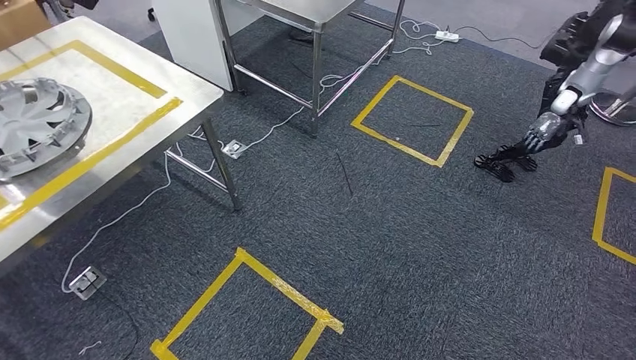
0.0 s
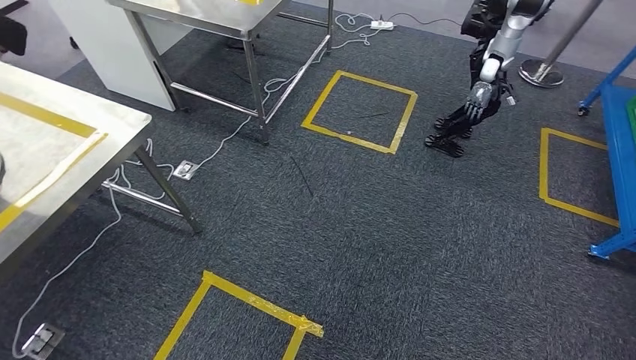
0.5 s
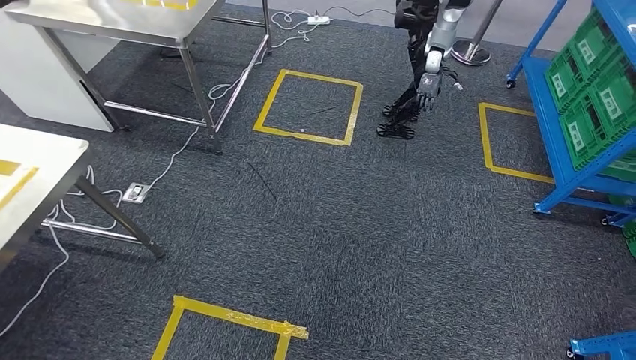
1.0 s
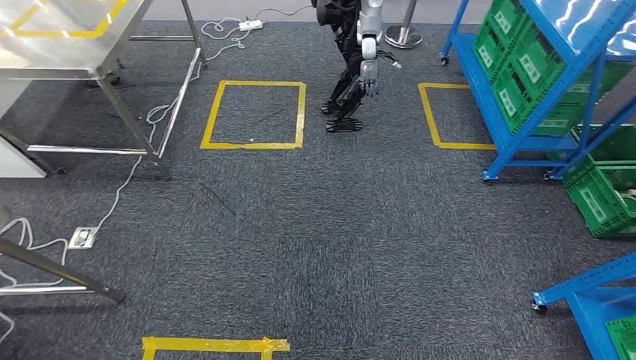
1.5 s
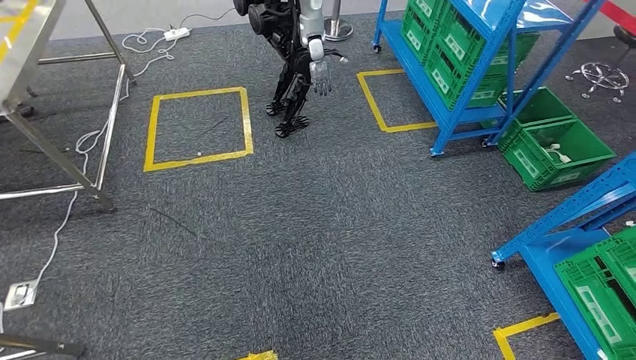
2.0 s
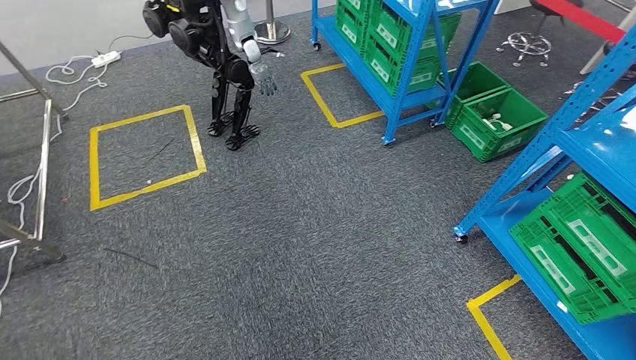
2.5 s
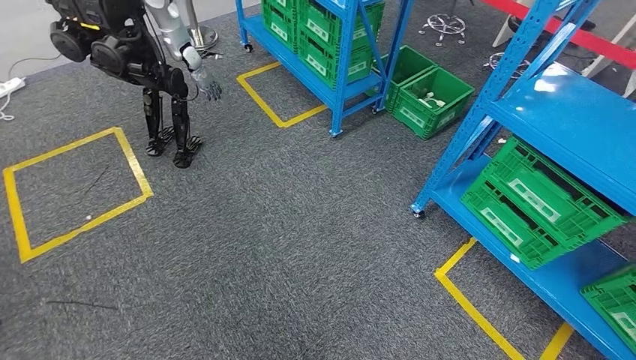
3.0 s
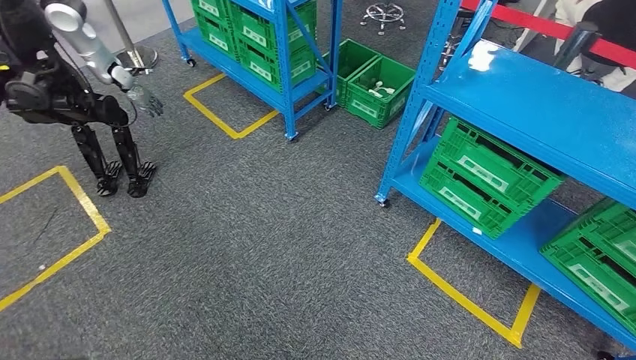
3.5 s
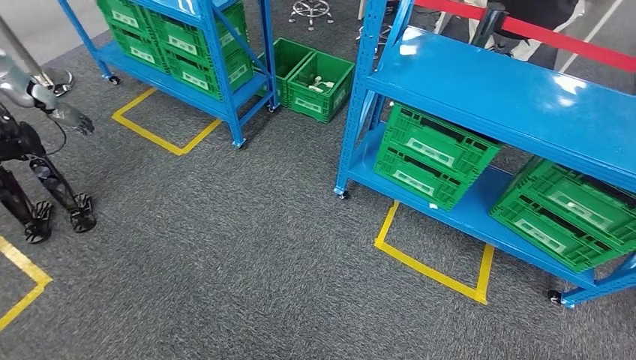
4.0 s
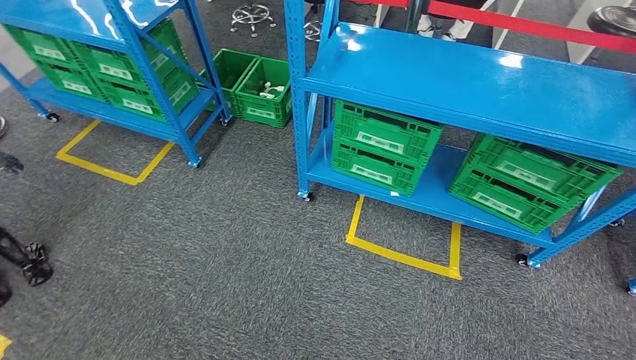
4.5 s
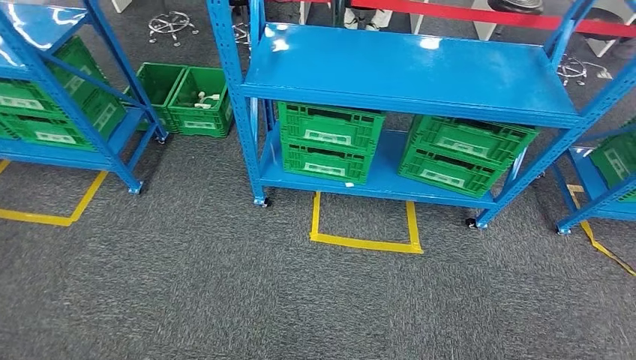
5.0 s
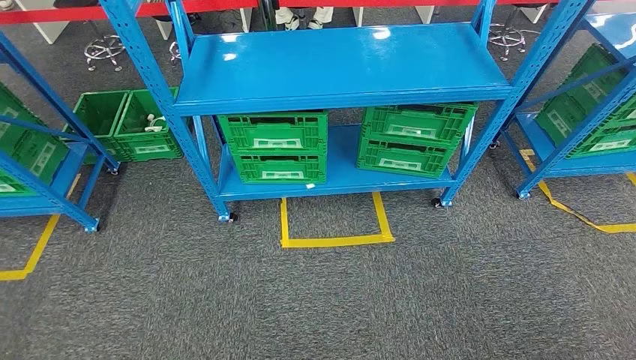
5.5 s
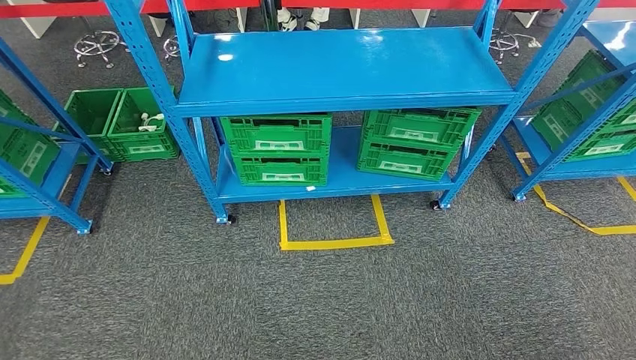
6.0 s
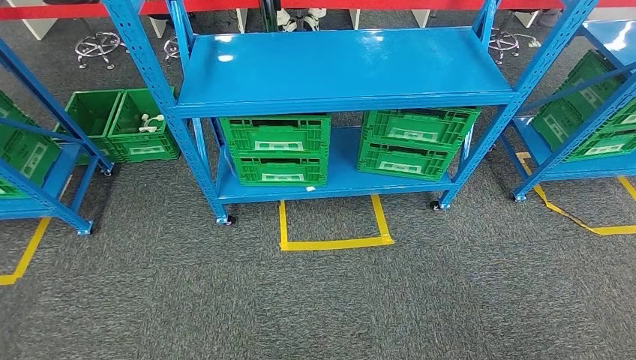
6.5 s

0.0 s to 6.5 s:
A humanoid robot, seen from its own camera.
Step, 0.0 to 6.5 s: Return to the initial position at the workbench.
